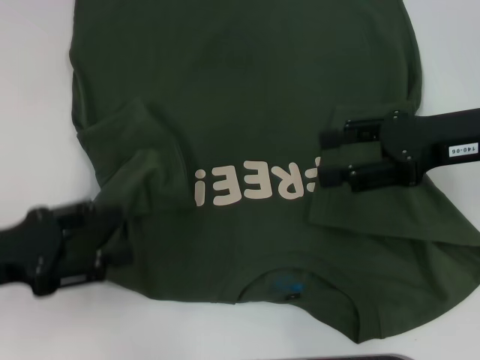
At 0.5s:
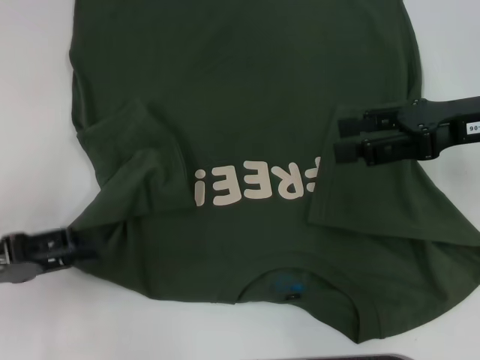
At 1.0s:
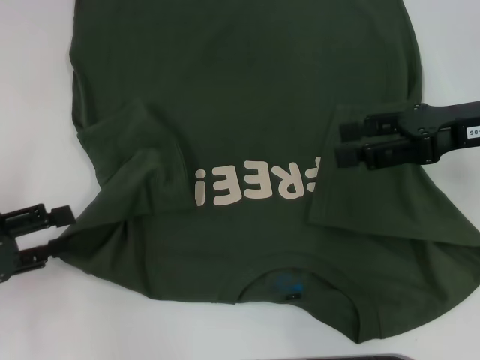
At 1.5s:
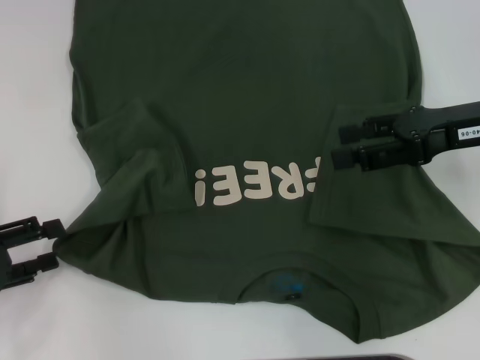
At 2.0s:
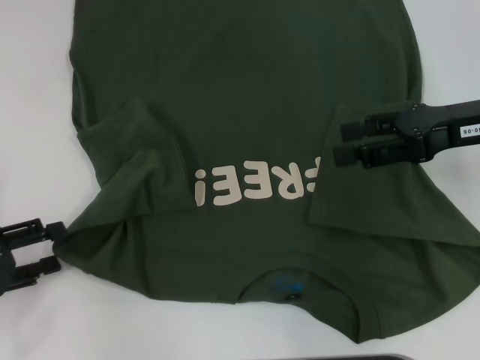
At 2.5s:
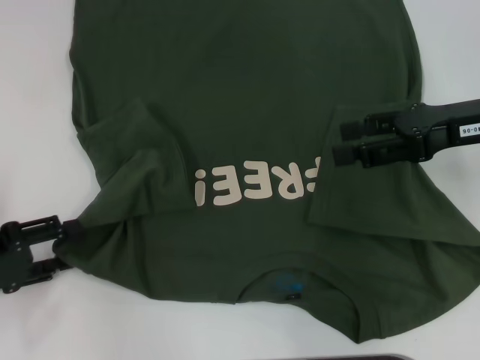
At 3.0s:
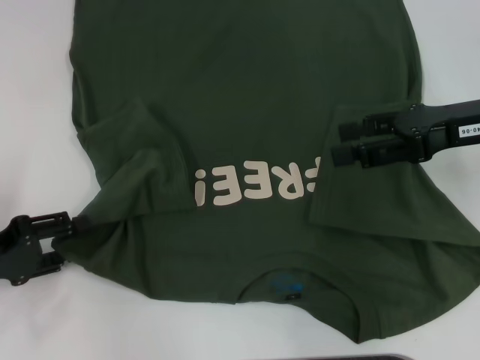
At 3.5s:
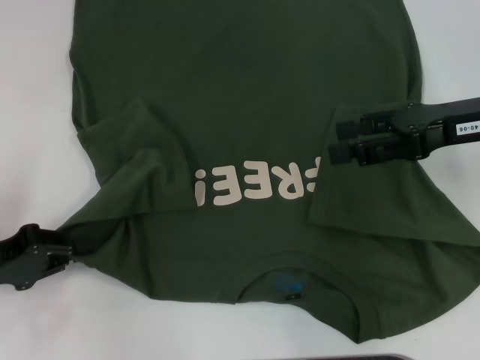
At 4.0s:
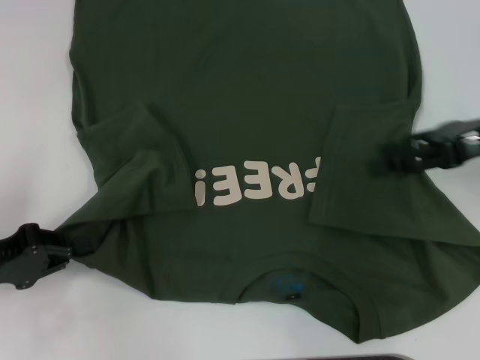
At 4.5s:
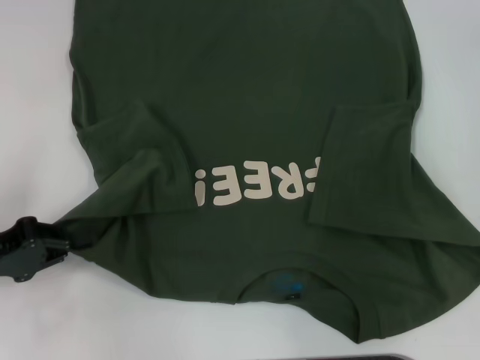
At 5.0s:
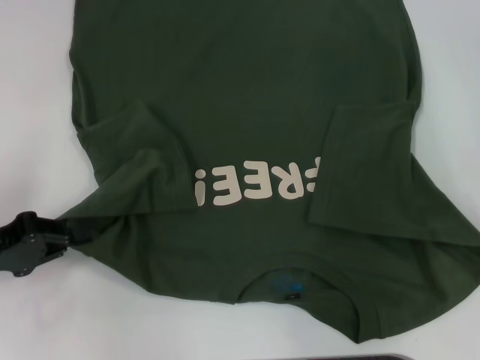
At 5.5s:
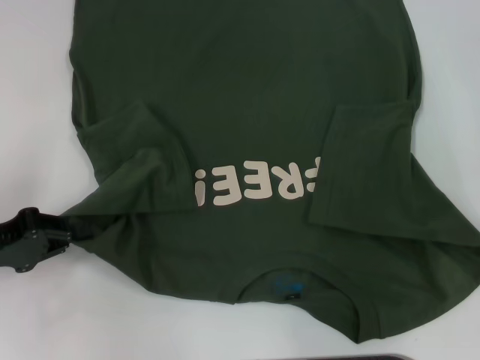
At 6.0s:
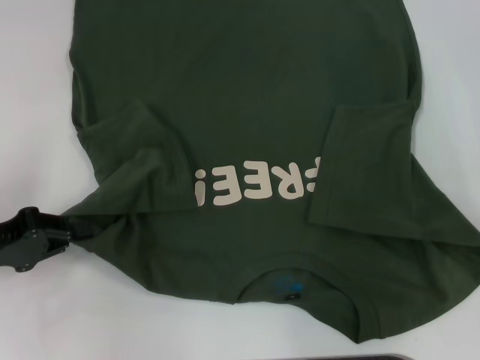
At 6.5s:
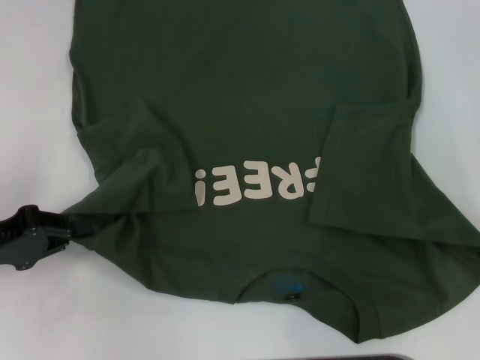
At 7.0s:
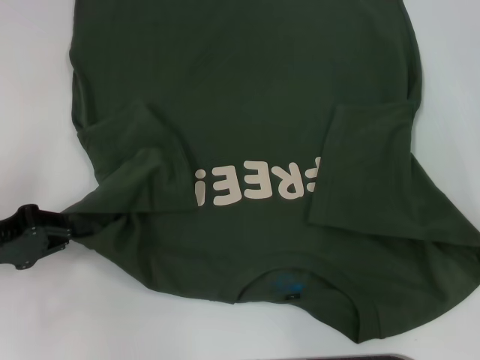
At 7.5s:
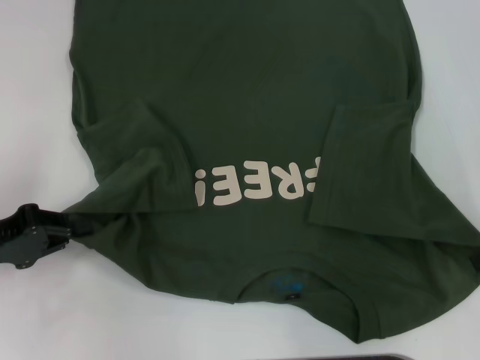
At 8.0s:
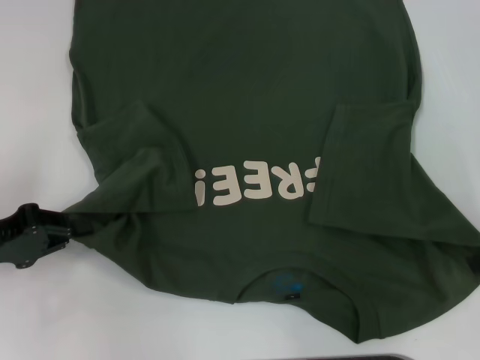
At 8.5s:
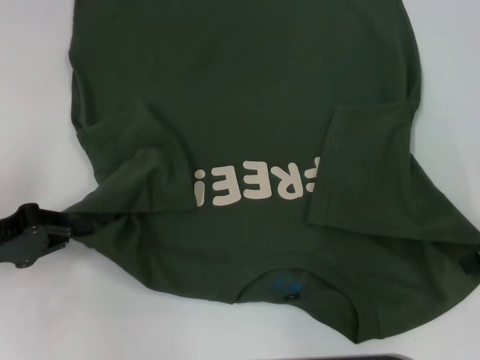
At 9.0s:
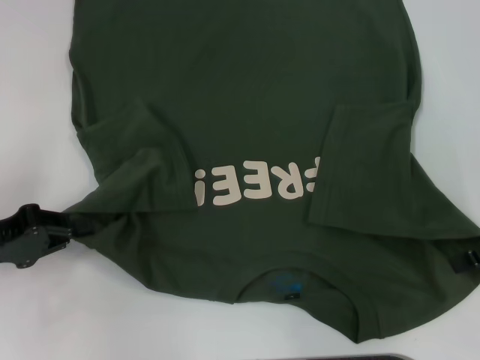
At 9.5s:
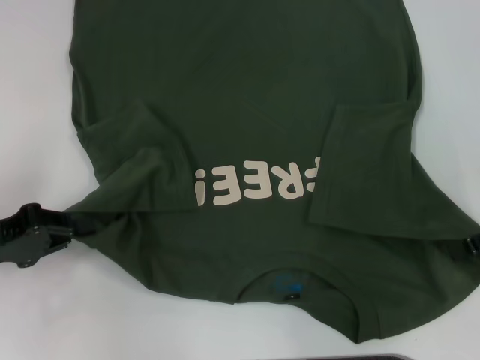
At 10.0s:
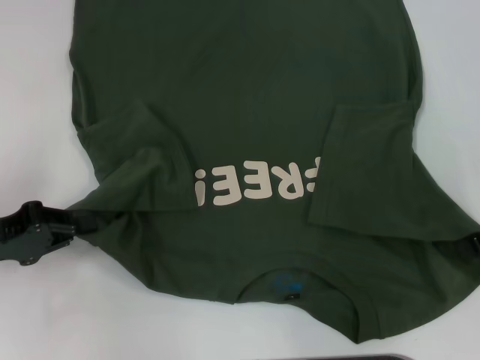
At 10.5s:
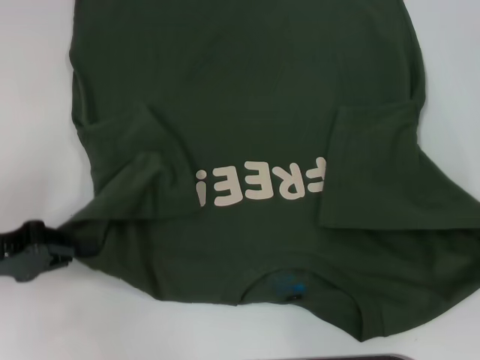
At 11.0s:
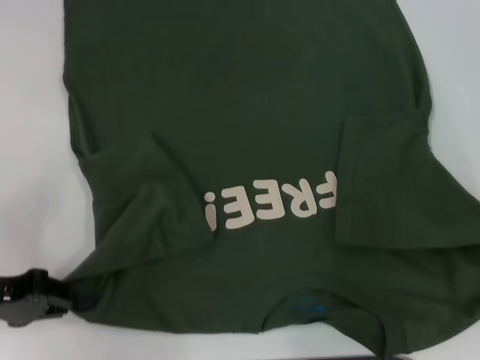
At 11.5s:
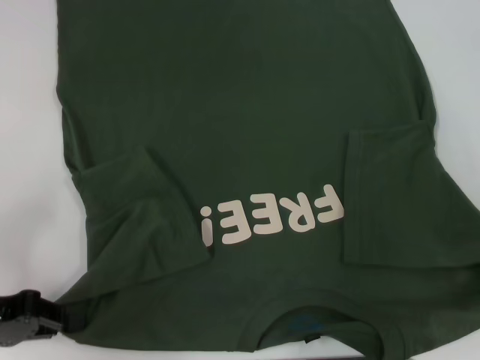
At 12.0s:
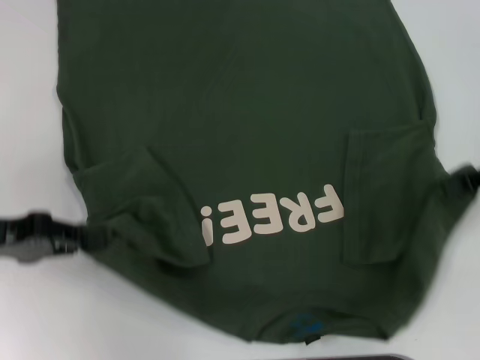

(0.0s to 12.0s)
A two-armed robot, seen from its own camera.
Step, 0.0s - 5.0s: Grab the bottom left corner with your left hand.
0.0s - 2.0s: The left gripper heads to the left, covering some 5 cm.
2.0s - 4.0s: The left gripper closes up.
4.0s - 6.0s: The right gripper travels to the right by approximately 10 cm.
6.0s - 8.0s: The grippers make only small movements.
10.0s - 12.0s: The right gripper closes.

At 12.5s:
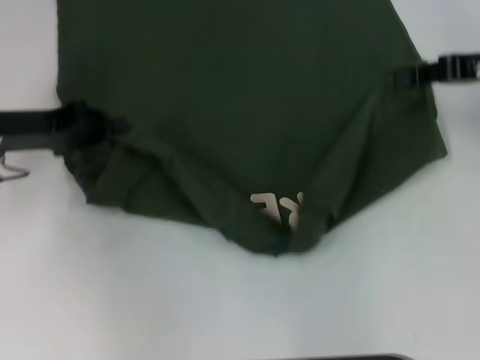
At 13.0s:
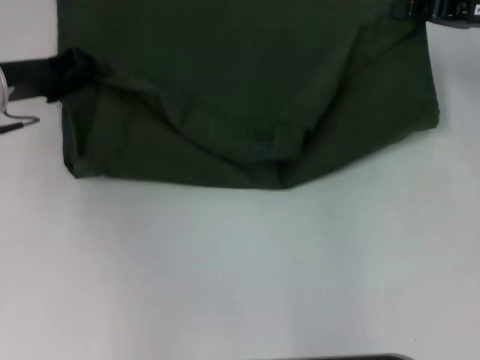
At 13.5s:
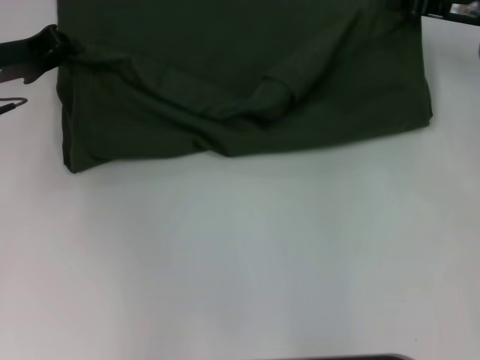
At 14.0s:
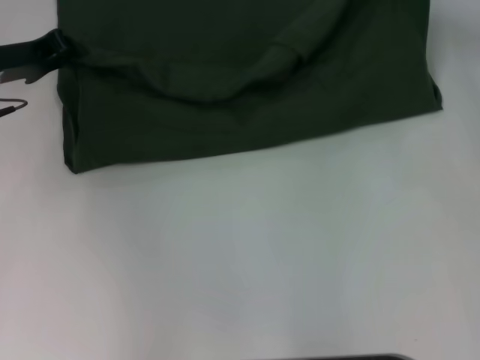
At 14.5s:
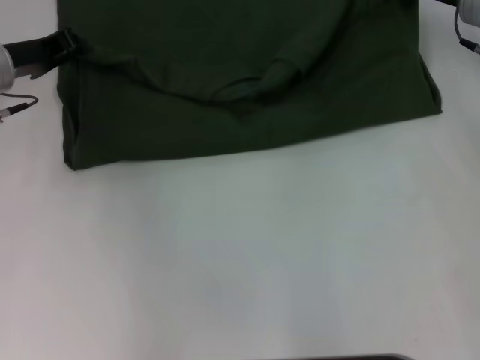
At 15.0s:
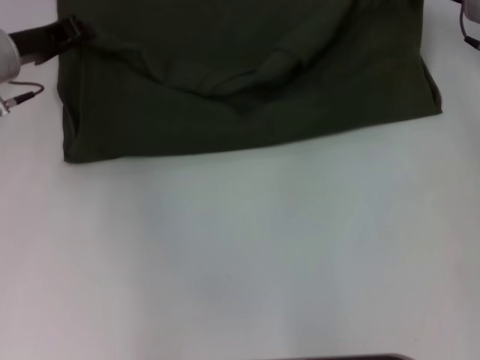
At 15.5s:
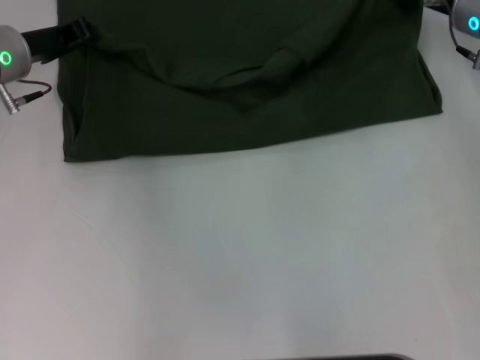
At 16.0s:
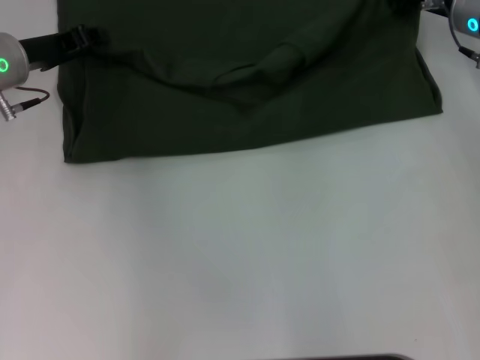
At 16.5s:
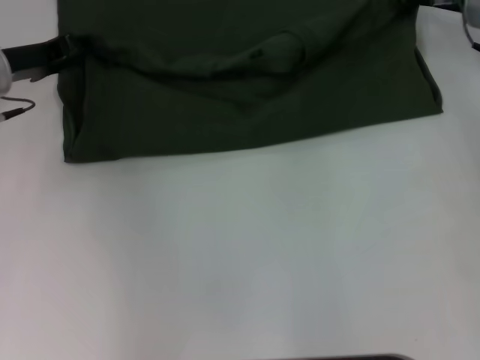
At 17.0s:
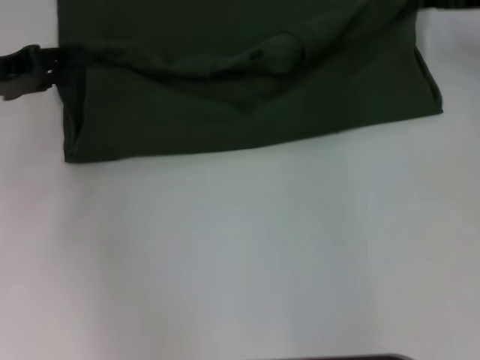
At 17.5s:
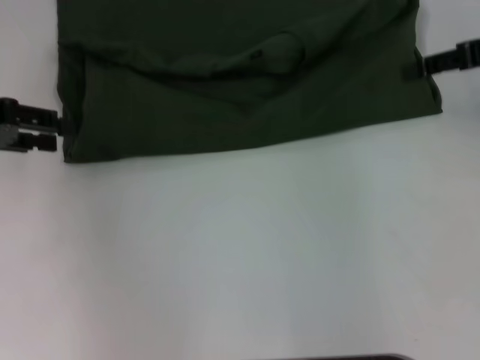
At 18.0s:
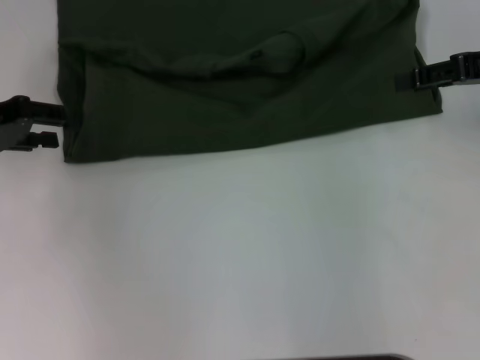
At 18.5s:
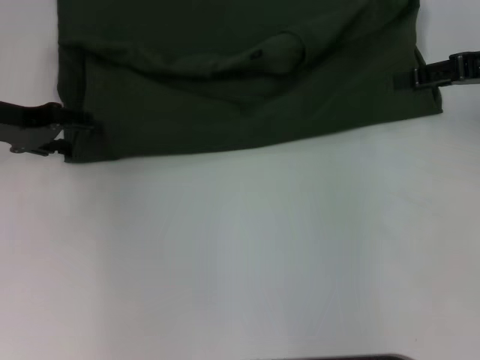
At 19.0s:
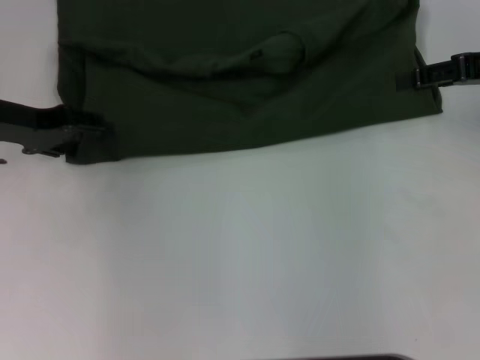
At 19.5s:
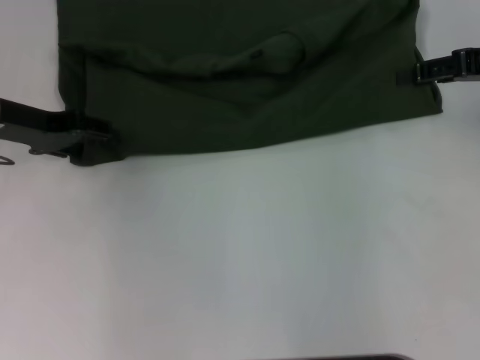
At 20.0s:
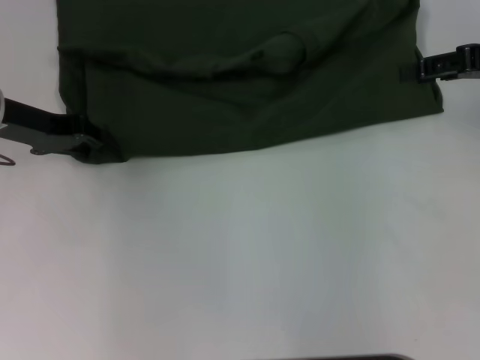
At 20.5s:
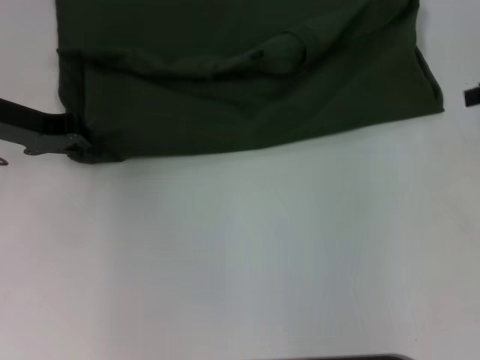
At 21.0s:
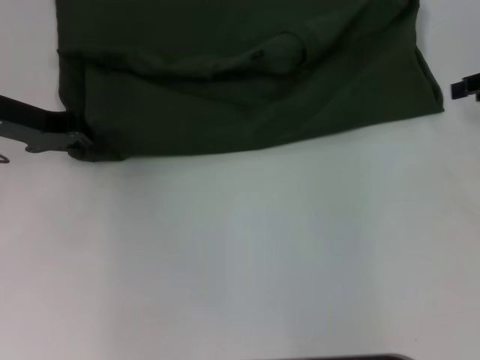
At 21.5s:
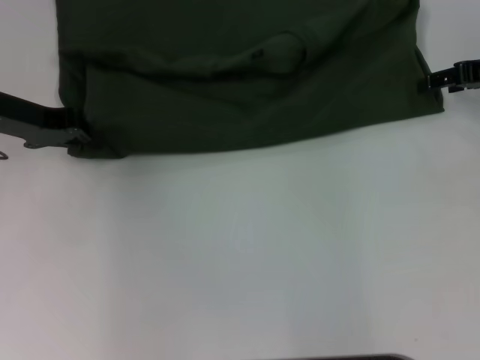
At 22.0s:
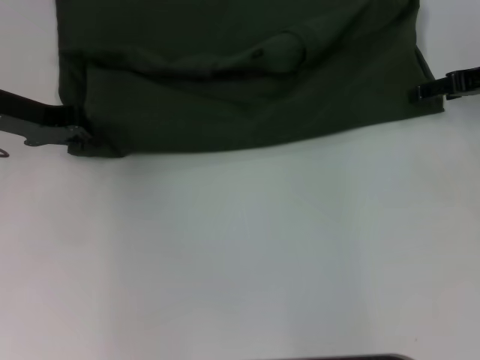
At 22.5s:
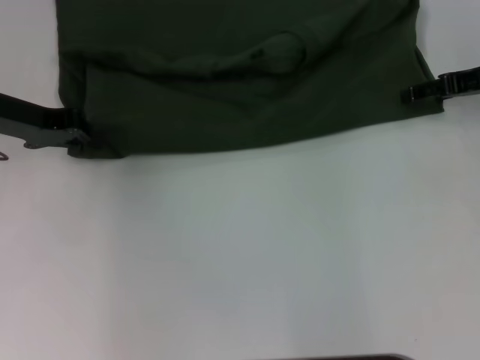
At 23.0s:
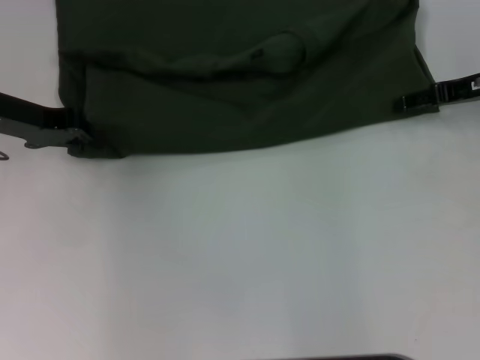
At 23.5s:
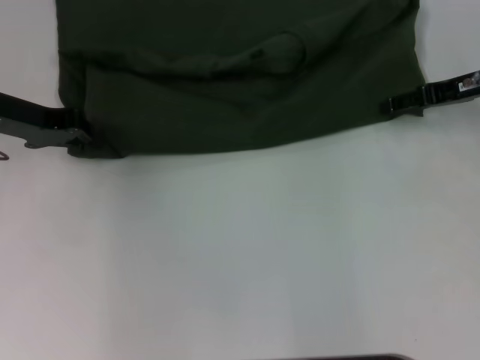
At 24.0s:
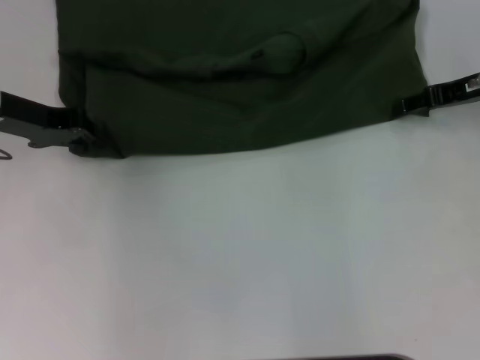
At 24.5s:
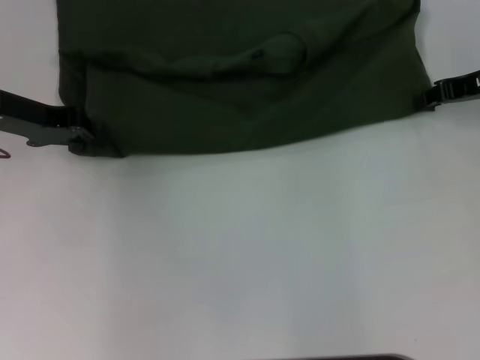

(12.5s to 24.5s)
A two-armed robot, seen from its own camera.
Step, 12.5s - 16.0s: Fold the clothes with your left hand.
Step, 12.5s - 16.0s: Fold the clothes with your right hand.
12.5s - 14.5s: The left gripper is displaced forward by some 5 cm; the right gripper goes about 10 cm forward and to the left.
14.5s - 16.5s: The left gripper opens up, while the right gripper opens up.
16.5s - 18.5s: The right gripper is displaced backward and upward by roughly 10 cm.
18.5s - 20.5s: The left gripper closes its fingers; the right gripper is displaced to the right by roughly 5 cm.
20.5s - 22.5s: The right gripper shifts approximately 5 cm downward.
22.5s - 24.5s: The right gripper closes up.

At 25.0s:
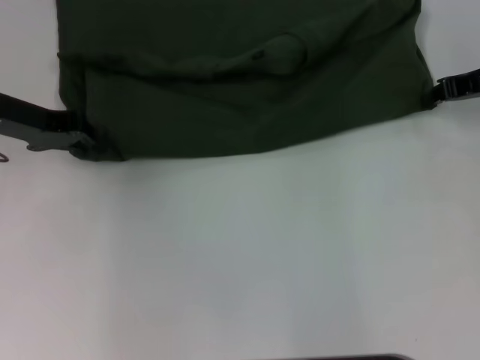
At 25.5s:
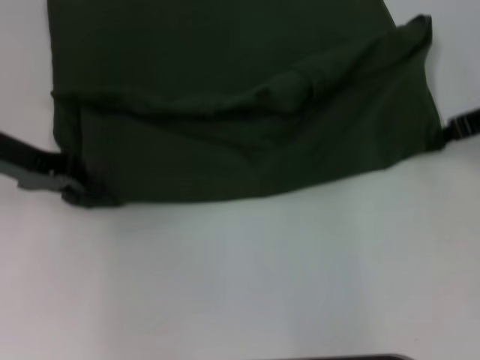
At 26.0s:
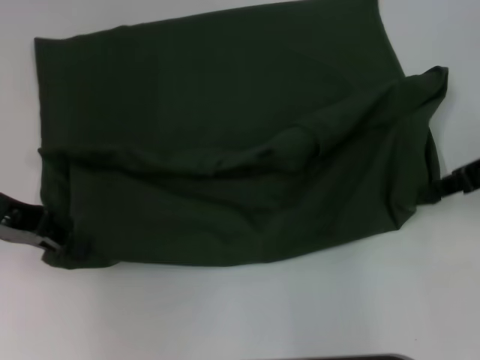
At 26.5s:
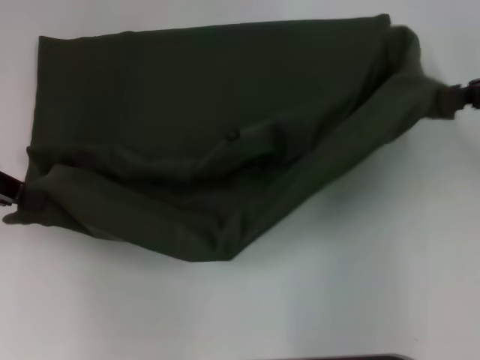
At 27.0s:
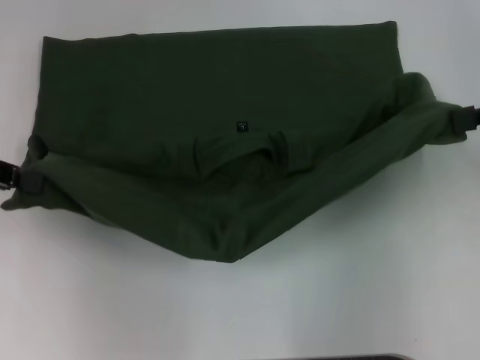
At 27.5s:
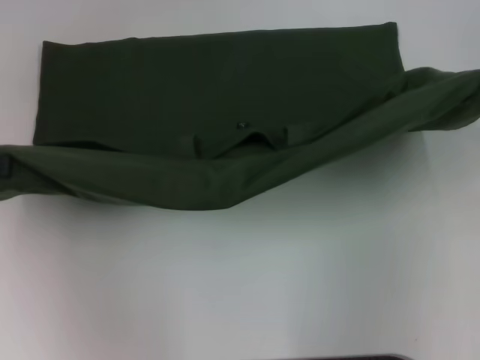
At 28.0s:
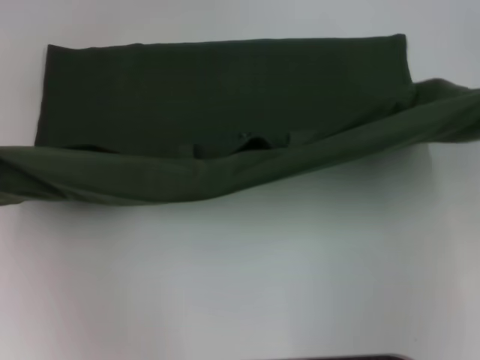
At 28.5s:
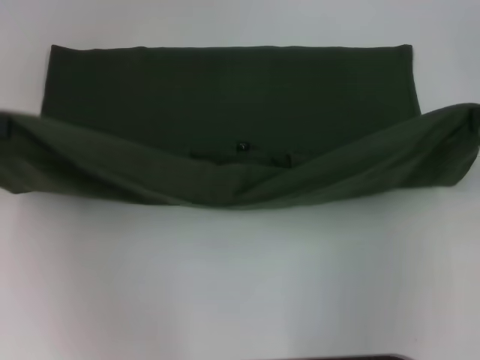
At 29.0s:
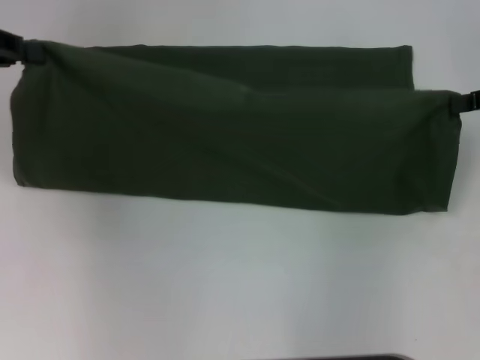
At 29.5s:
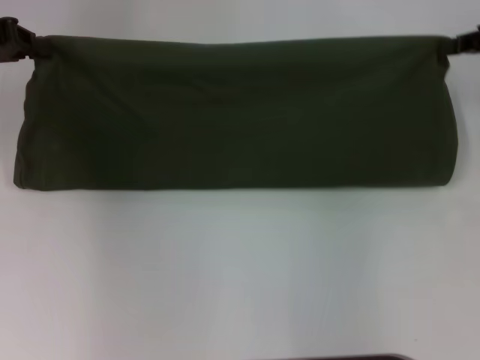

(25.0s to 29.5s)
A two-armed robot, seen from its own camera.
25.0s - 27.0s: The left gripper is displaced backward, to the left and upward by some 10 cm; the right gripper moves backward and upward, about 15 cm.
27.0s - 29.5s: Both grippers travel together forward, some 10 cm.
